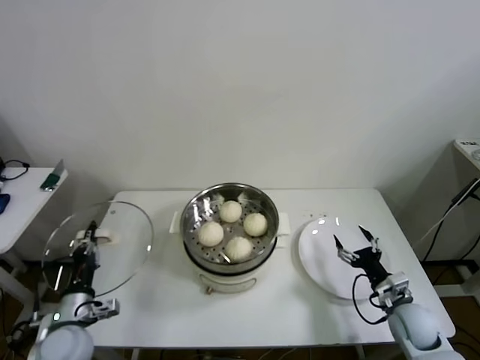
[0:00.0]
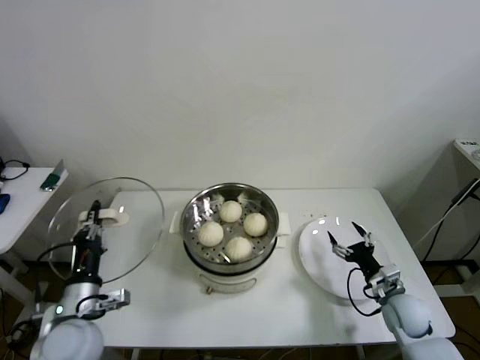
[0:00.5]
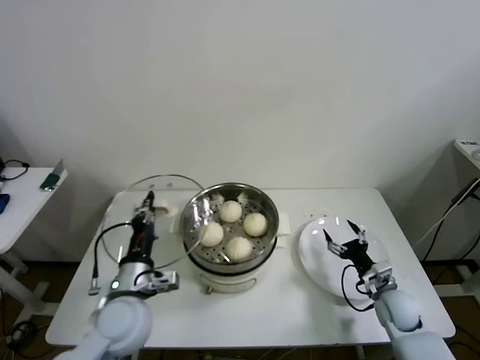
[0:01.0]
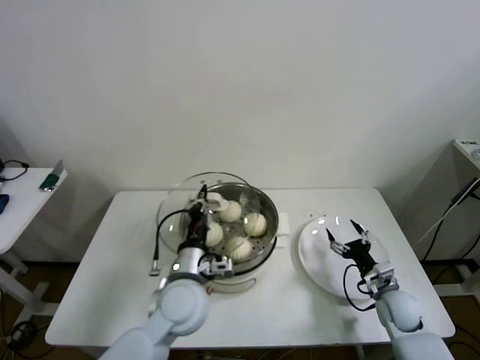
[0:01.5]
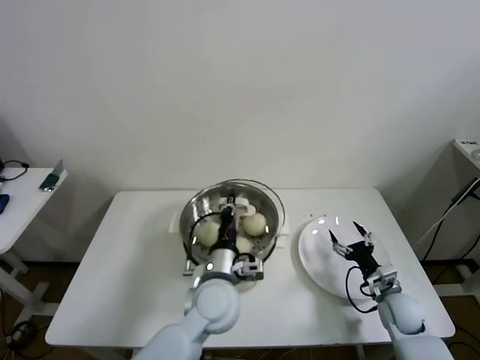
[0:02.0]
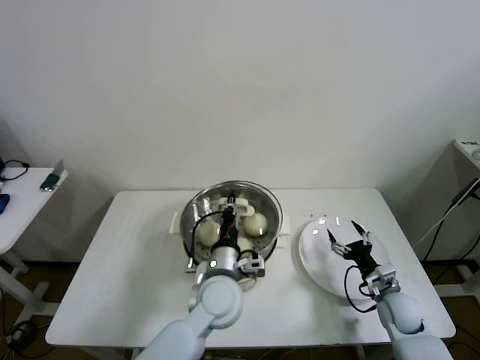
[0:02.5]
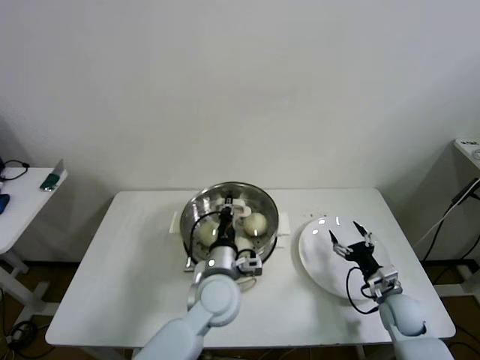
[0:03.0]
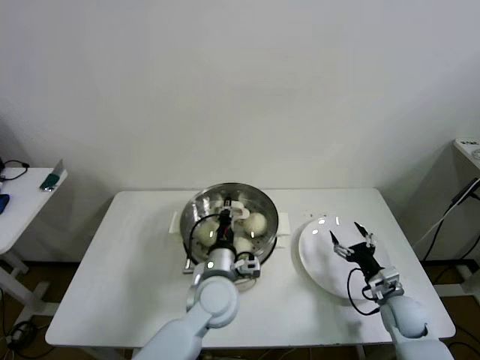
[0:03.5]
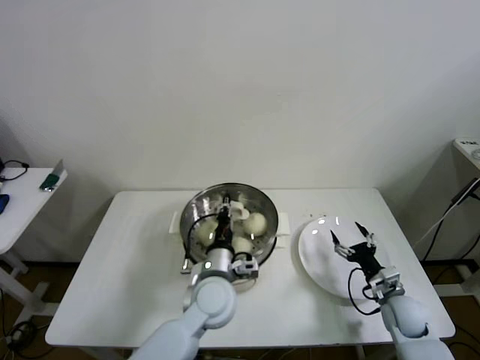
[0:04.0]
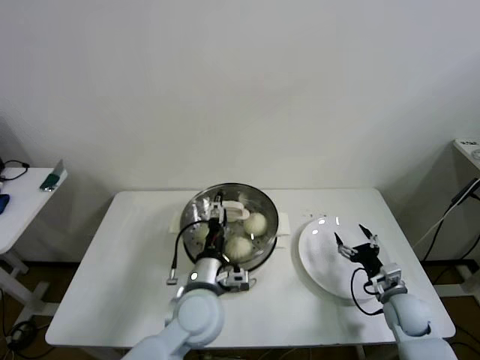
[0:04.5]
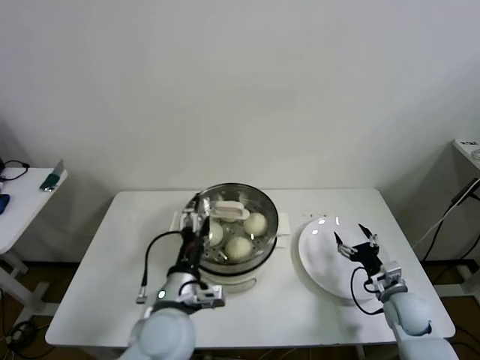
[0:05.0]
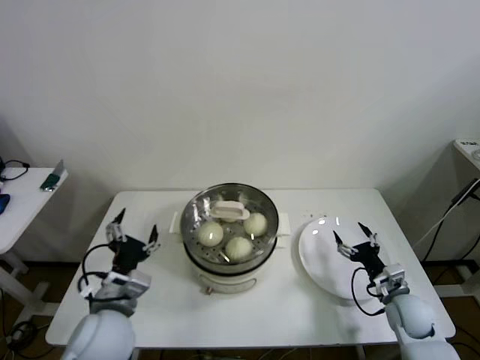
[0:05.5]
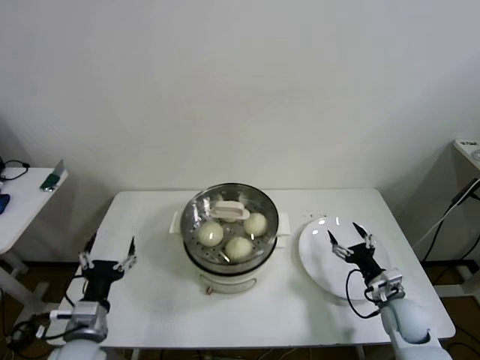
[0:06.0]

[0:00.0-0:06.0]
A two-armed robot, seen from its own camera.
Step, 0.0 to 4.5 s: Place the pot lid on the steamer with left gripper.
0.0 to 2.0 s: The left gripper shifts some 30 cm to the right.
2.0 to 4.0 s: There are only small adjustments of the grippers.
4.0 to 6.0 s: The left gripper shifts approximately 25 cm to the left and backward, and opens its fingers.

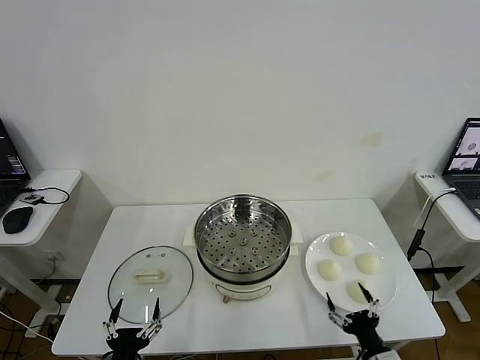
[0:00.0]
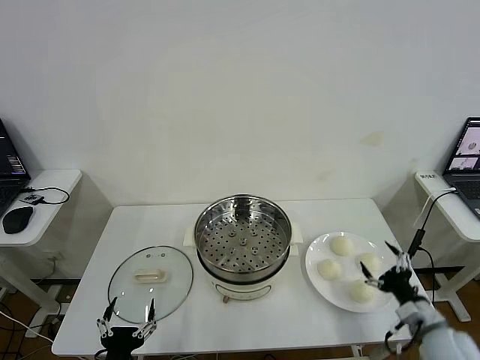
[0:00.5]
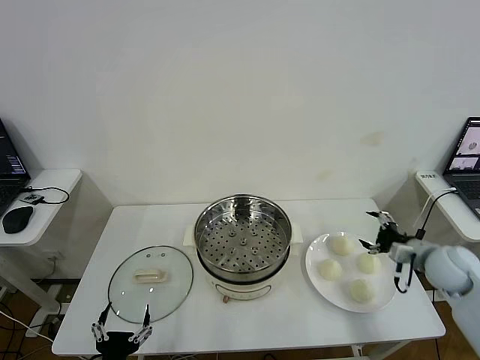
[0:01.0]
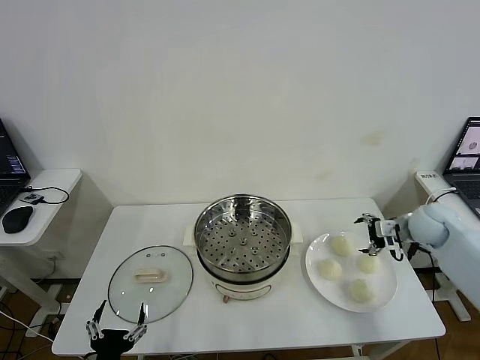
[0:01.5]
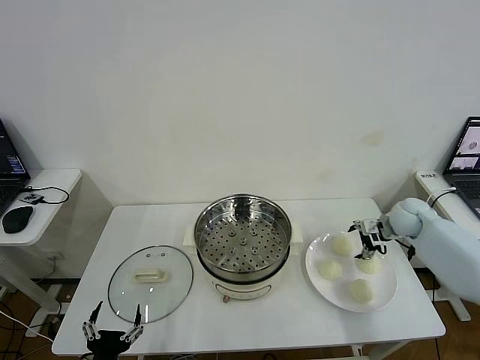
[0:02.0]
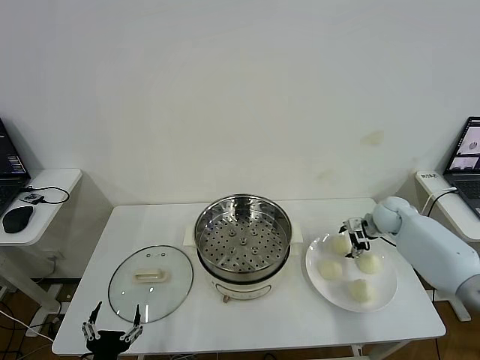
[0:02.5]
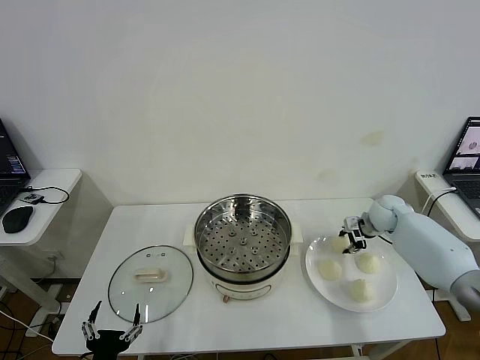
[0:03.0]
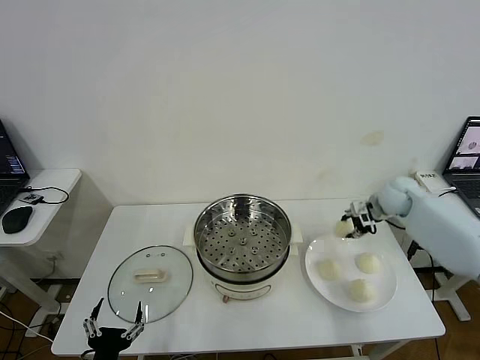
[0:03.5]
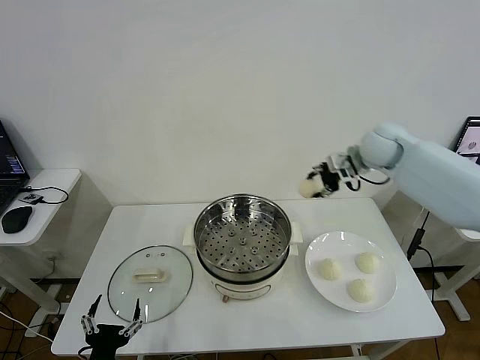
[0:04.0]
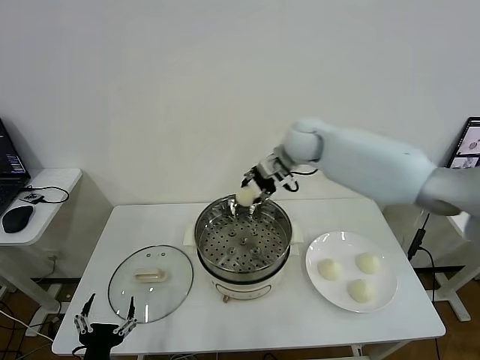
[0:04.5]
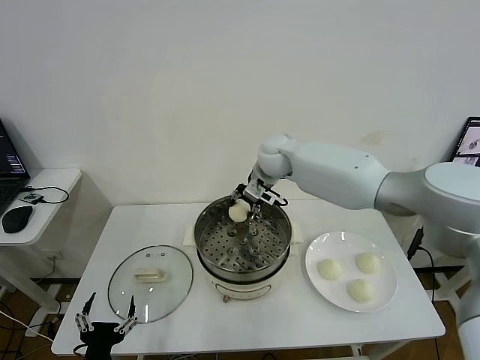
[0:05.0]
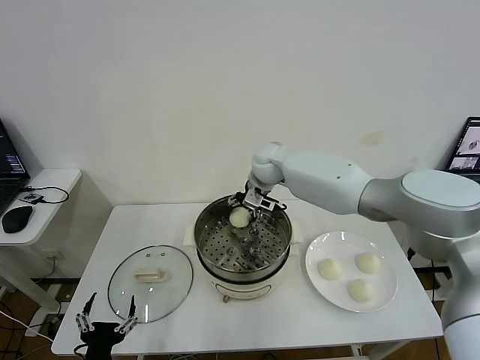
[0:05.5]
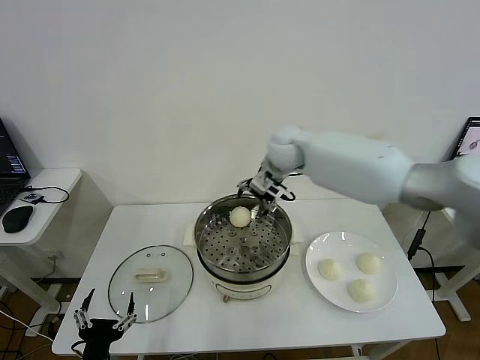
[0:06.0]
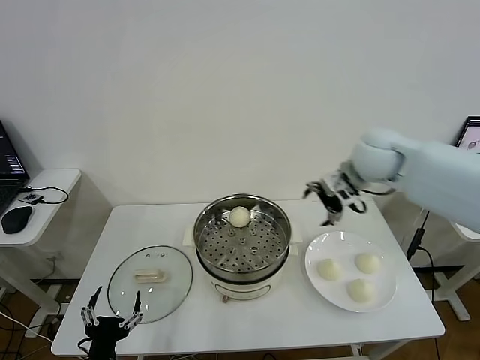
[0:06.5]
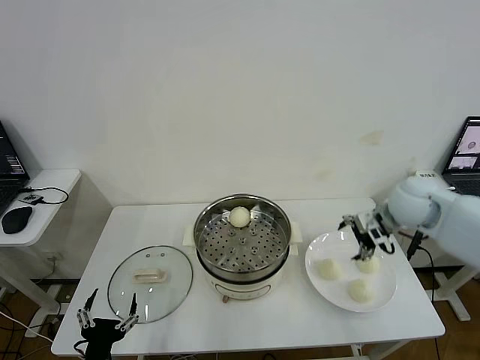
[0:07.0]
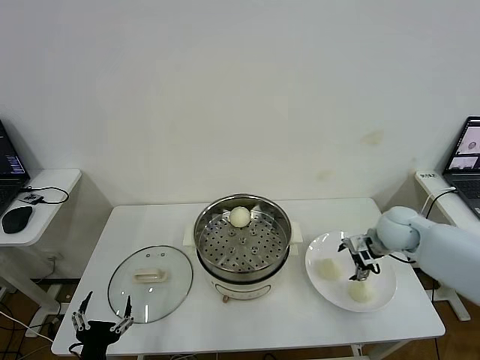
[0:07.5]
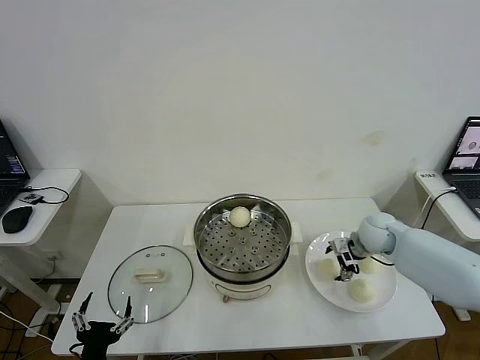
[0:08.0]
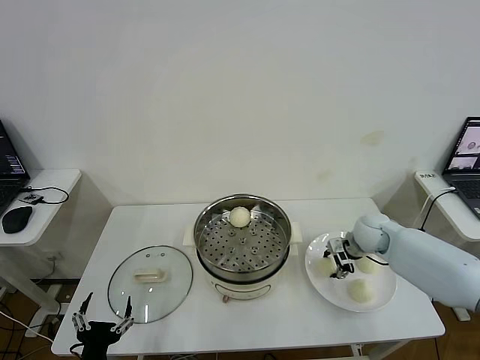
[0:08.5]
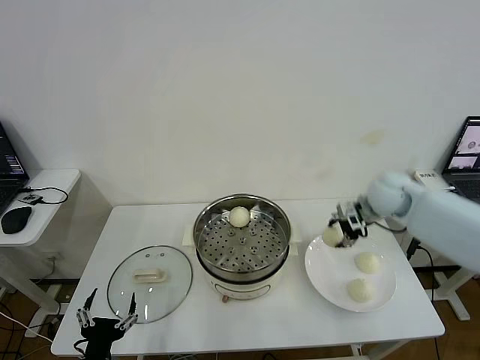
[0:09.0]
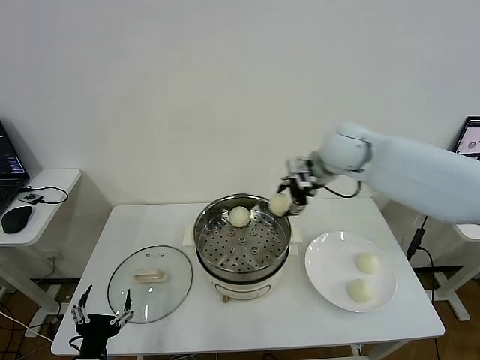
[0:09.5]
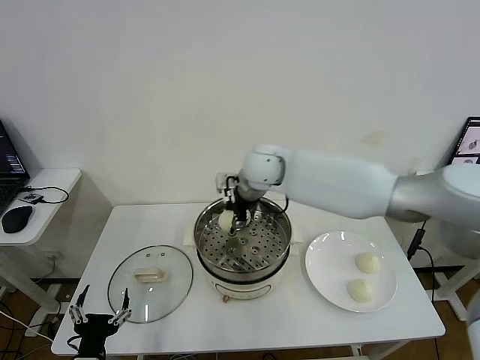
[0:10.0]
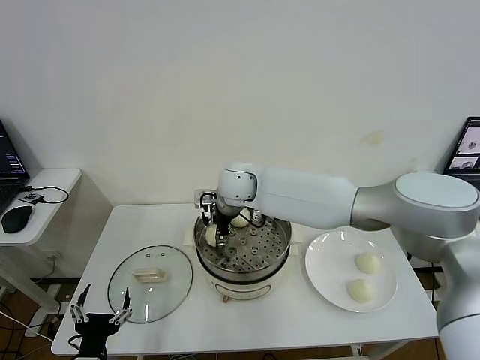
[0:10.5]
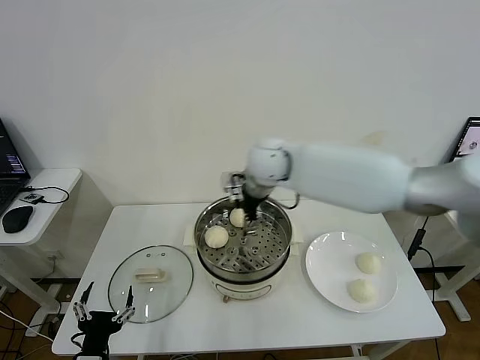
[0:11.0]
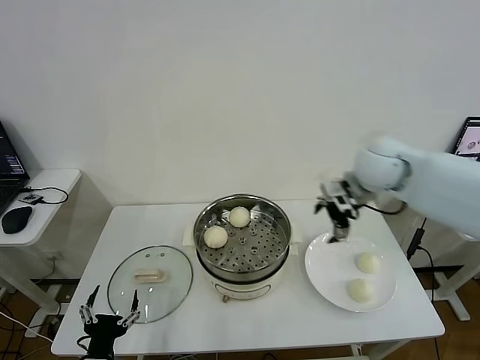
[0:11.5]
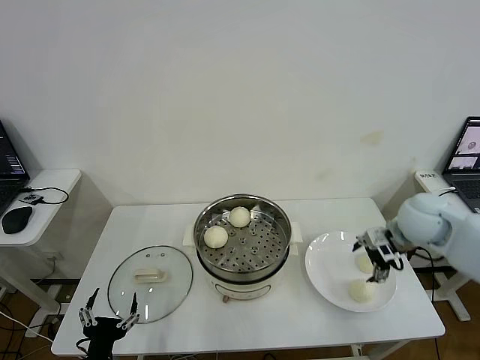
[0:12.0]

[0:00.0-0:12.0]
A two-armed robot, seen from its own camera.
Step, 0.0 to 2.5 s: Grasp the baozi in the plate with right gripper.
Step, 3.0 to 5.5 s: Place the baozi on the steamer with right gripper.
Step, 6.0 to 8.5 s: Grasp the baozi in the plate with right gripper.
Step, 9.0 to 10.5 s: Place the baozi on the steamer with right gripper.
2.0 to 4.0 s: The right gripper moves upward and to the left, roughly 25 cm, and closes.
4.0 to 6.0 s: The right gripper is displaced to the left by approximately 10 cm, and opens its fingers.
6.0 to 8.0 s: The right gripper goes some 30 cm downward and to the right.
8.0 to 10.0 s: The right gripper travels to the left and upward by approximately 35 cm, and closes its fingers.
10.0 to 12.0 s: The right gripper travels to the right by some 35 cm, and opens up.

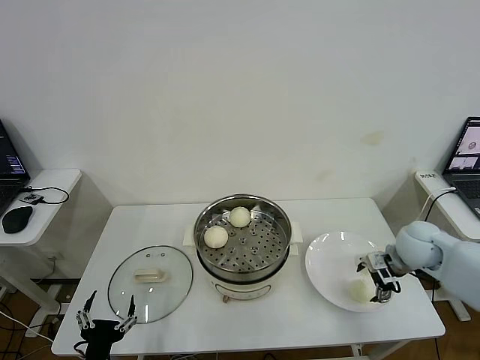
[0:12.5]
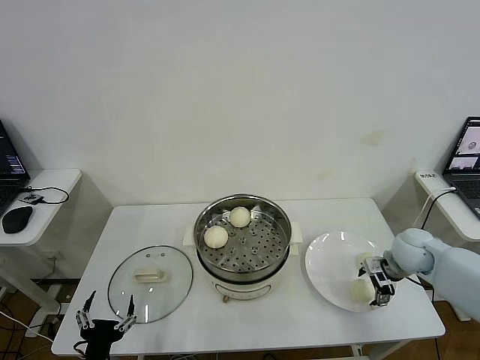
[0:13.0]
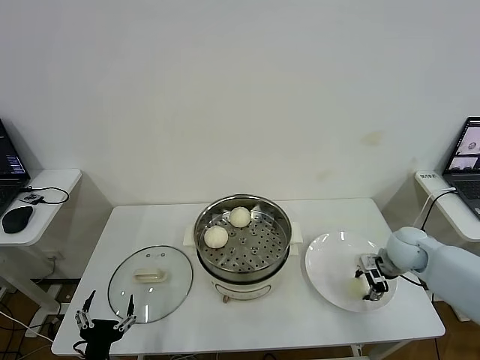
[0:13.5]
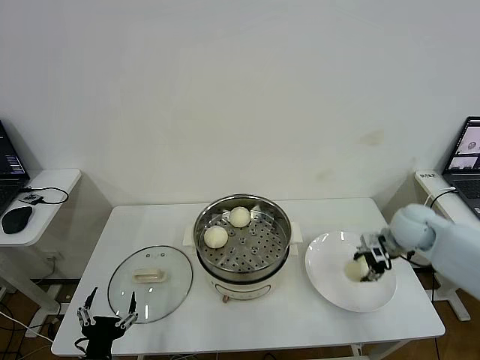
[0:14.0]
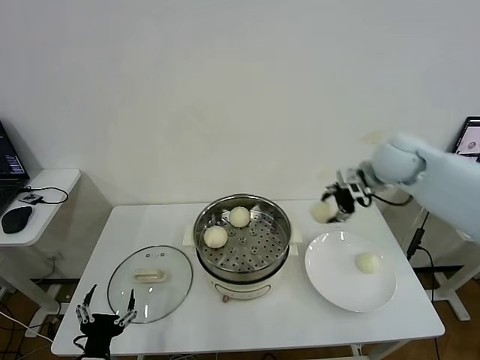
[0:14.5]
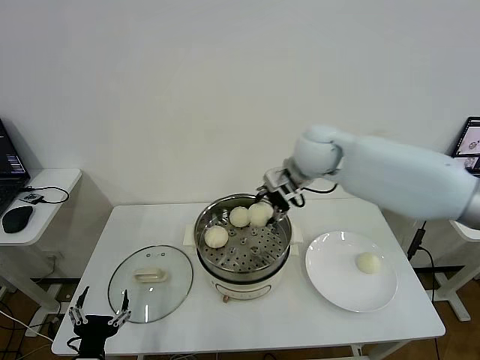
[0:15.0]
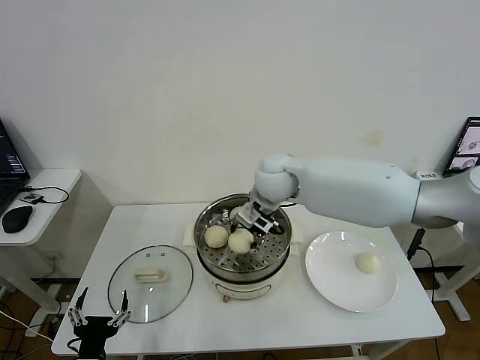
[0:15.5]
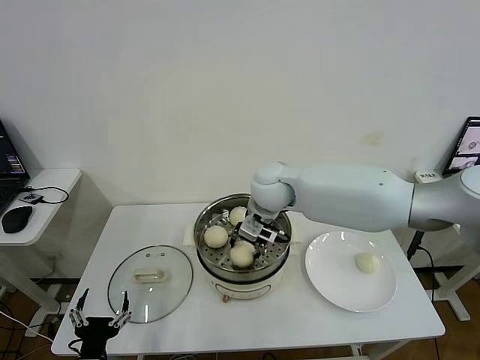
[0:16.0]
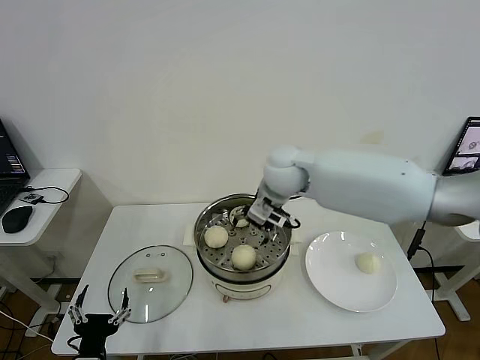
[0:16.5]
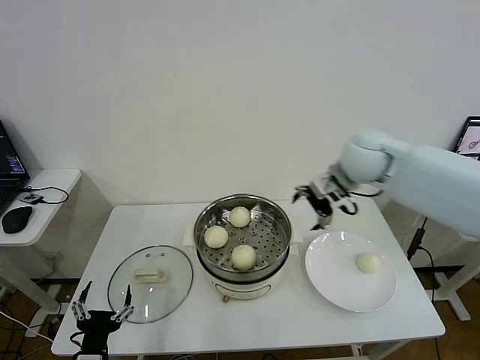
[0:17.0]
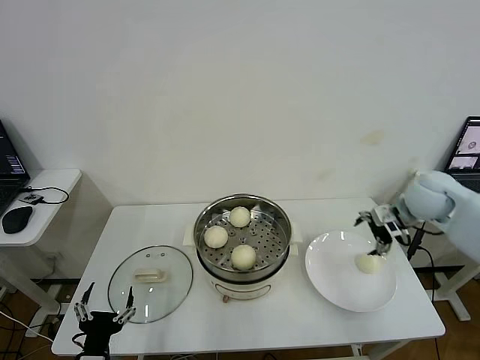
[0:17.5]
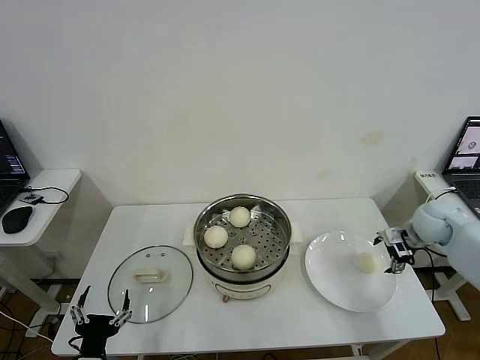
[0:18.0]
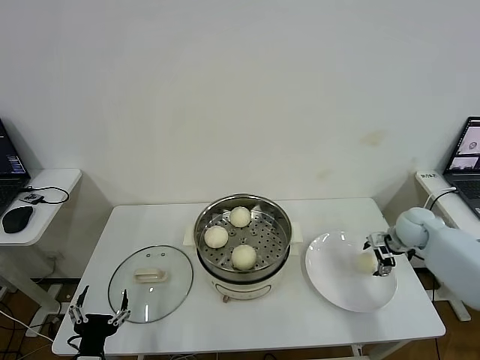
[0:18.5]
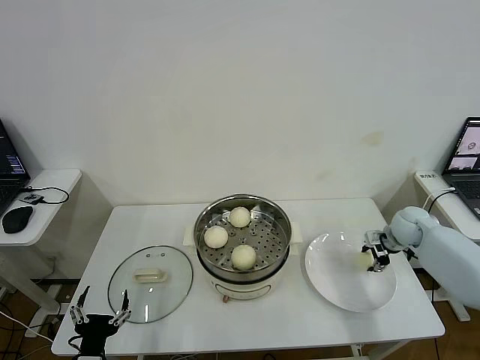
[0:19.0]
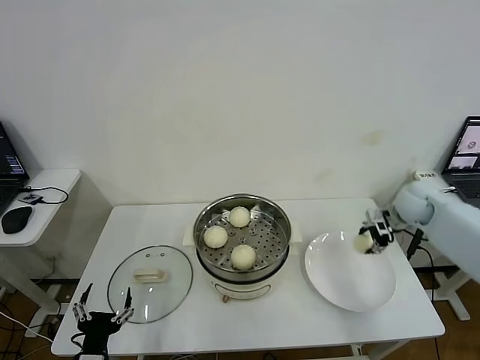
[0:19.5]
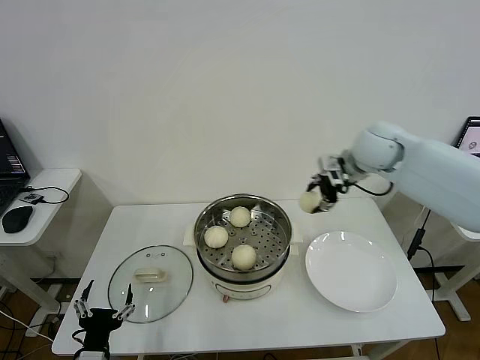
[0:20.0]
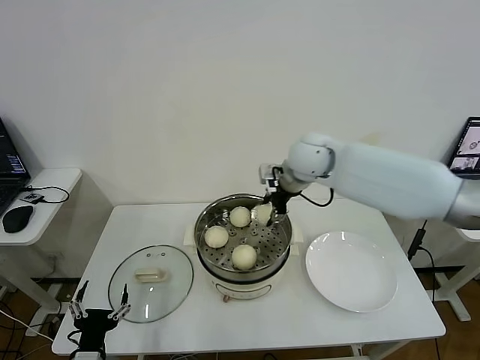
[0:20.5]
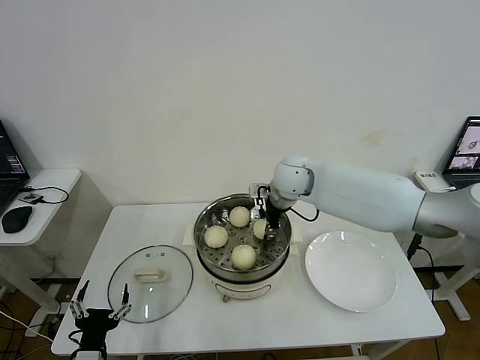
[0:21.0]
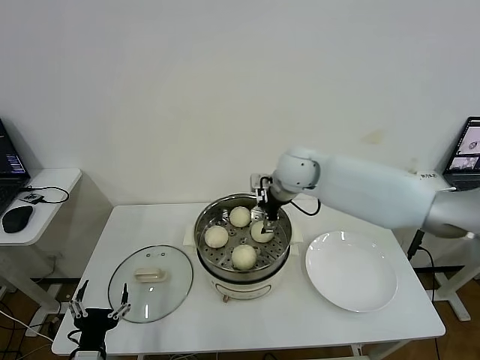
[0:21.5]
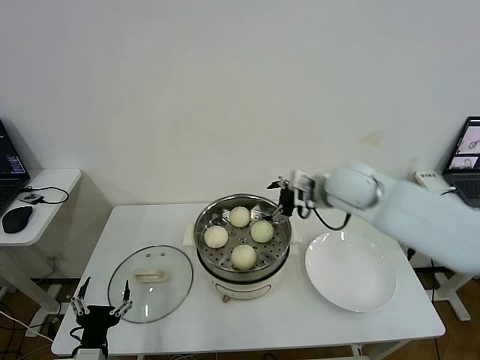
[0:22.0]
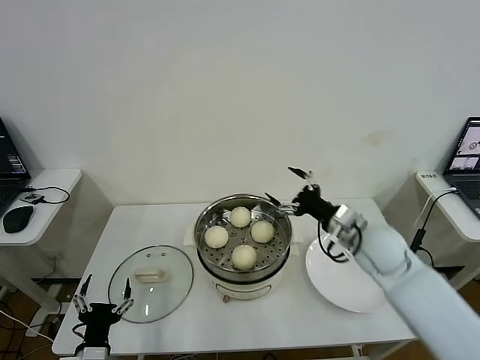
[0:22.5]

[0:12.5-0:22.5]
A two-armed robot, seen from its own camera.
Step, 14.0 to 16.0 s: Place the baozi on the steamer with right gripper.
Step, 16.5 to 19.0 s: Grasp the baozi in the plate with right gripper.
Step, 19.5 to 21.0 s: Place the baozi on the steamer with right gripper.
12.5 to 14.5 s: The right gripper goes some 25 cm upward, to the left and forward, and closes up.
14.5 to 16.5 s: The right gripper is displaced to the left by approximately 20 cm, and opens.
16.5 to 18.5 s: The right gripper goes about 40 cm to the right and downward.
18.5 to 20.5 s: The right gripper travels to the left and upward by roughly 35 cm, and closes up.
20.5 to 22.5 s: The right gripper travels backward, to the right and downward by about 25 cm, and opens its fingers.
